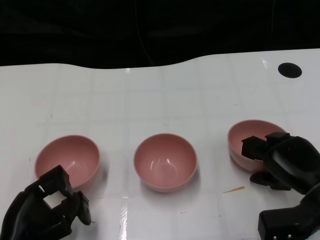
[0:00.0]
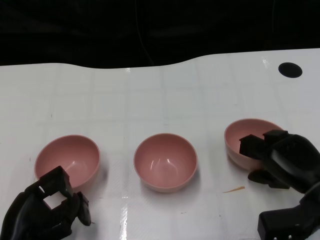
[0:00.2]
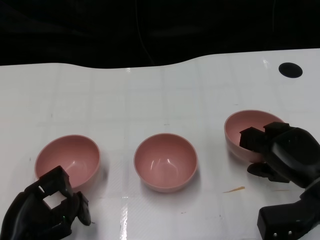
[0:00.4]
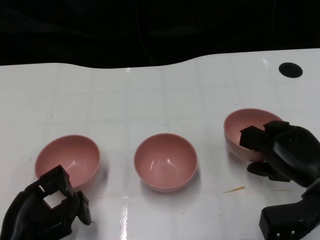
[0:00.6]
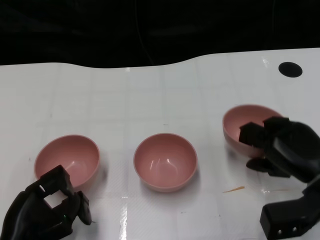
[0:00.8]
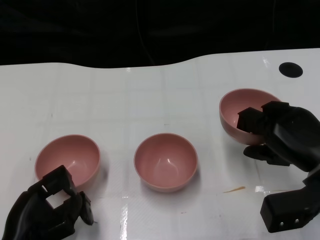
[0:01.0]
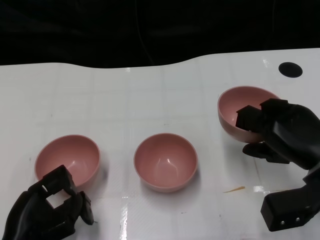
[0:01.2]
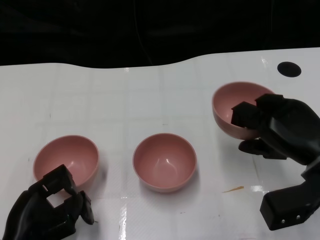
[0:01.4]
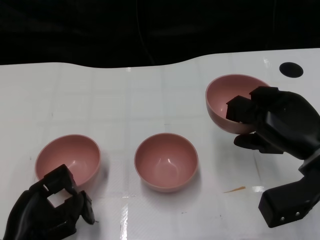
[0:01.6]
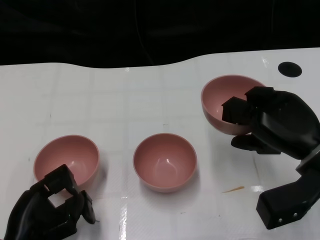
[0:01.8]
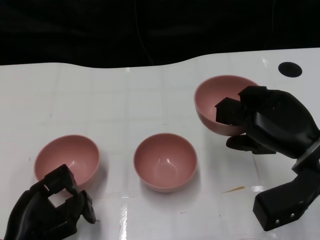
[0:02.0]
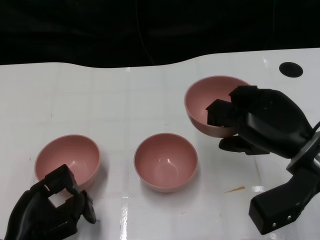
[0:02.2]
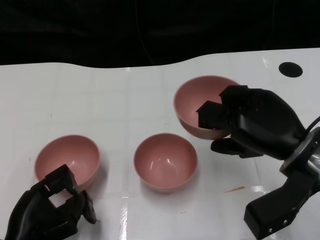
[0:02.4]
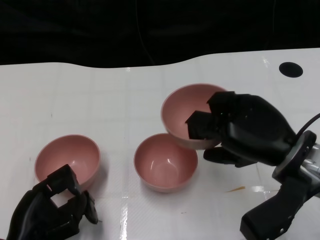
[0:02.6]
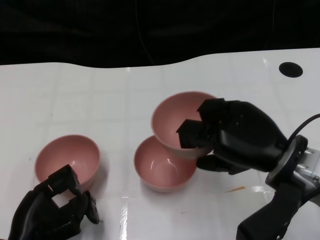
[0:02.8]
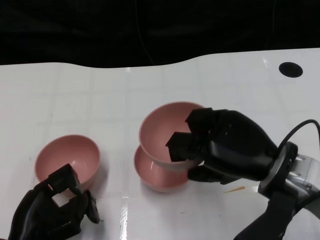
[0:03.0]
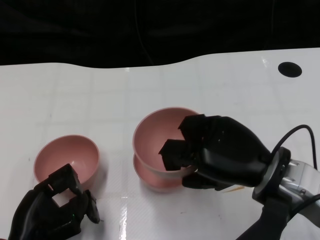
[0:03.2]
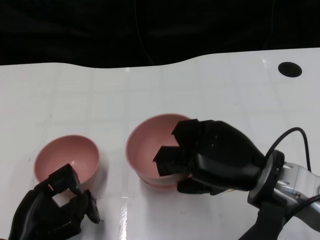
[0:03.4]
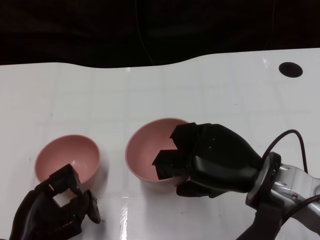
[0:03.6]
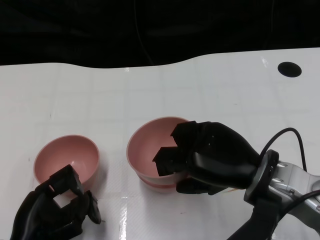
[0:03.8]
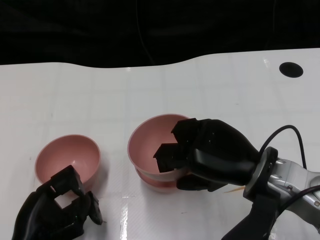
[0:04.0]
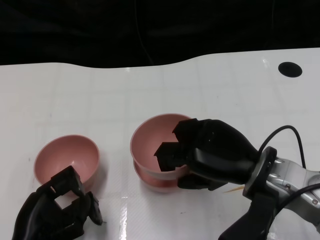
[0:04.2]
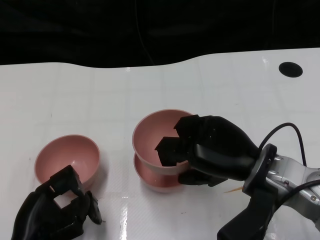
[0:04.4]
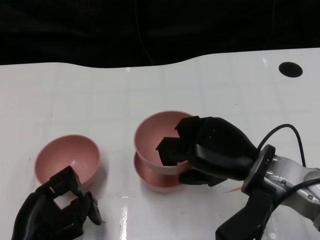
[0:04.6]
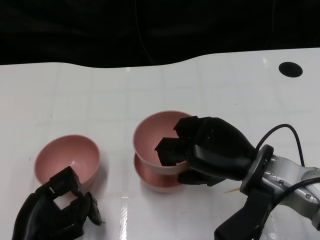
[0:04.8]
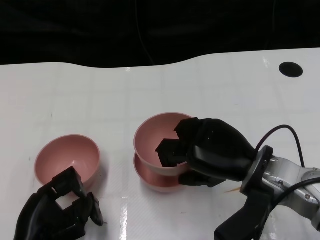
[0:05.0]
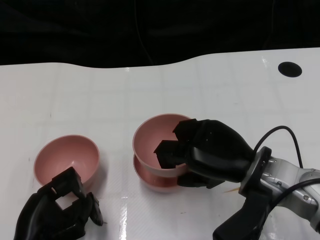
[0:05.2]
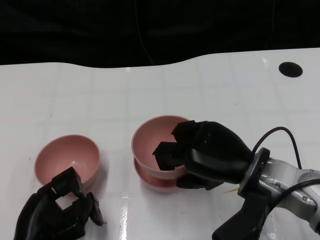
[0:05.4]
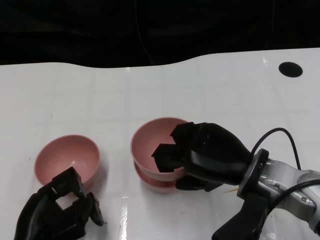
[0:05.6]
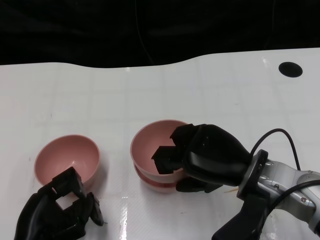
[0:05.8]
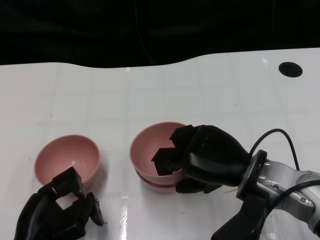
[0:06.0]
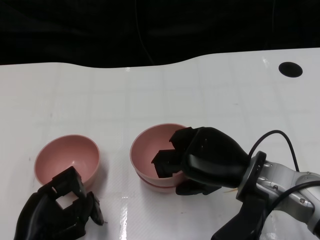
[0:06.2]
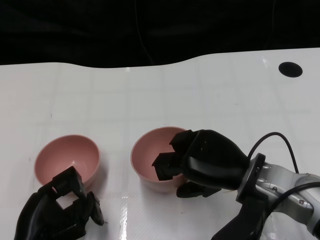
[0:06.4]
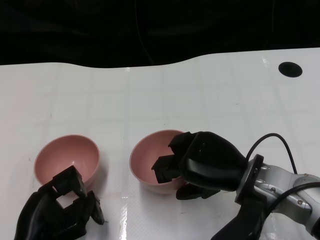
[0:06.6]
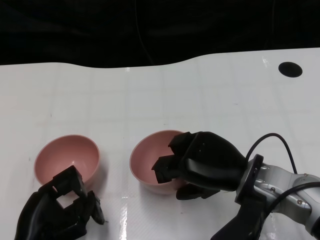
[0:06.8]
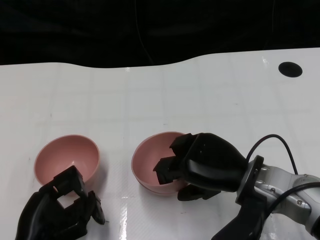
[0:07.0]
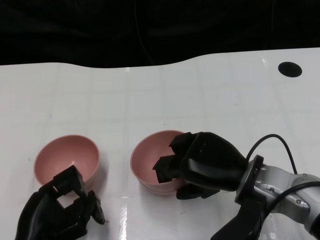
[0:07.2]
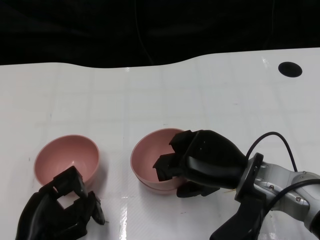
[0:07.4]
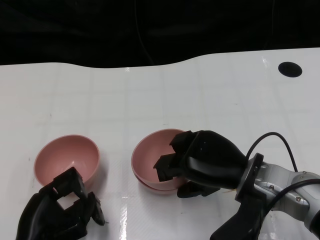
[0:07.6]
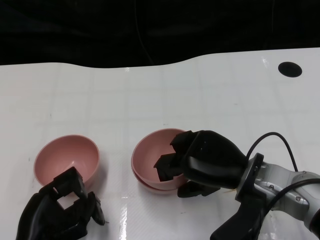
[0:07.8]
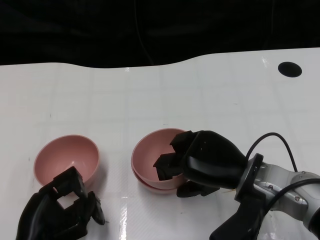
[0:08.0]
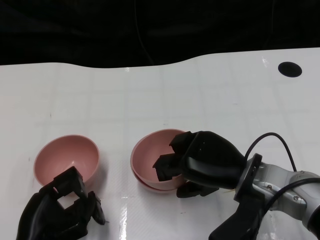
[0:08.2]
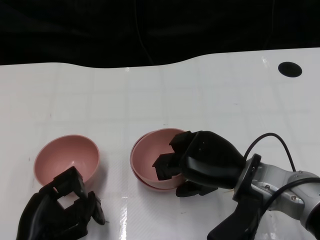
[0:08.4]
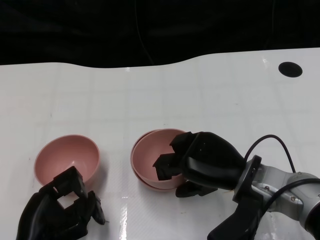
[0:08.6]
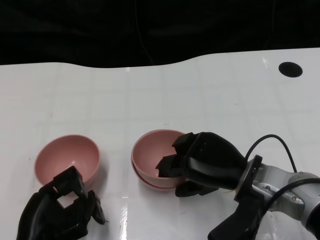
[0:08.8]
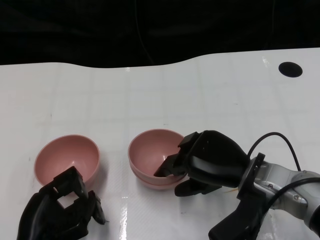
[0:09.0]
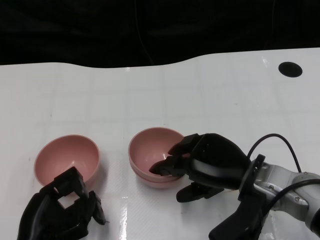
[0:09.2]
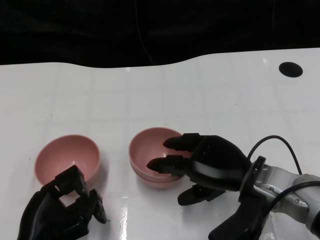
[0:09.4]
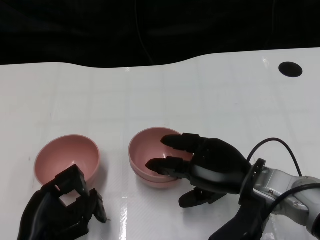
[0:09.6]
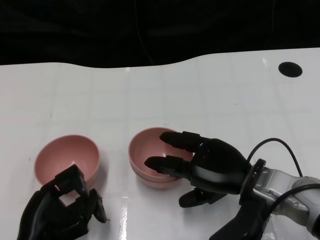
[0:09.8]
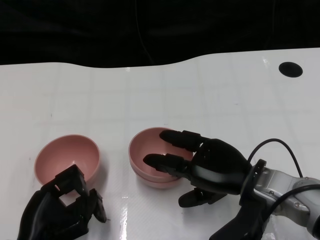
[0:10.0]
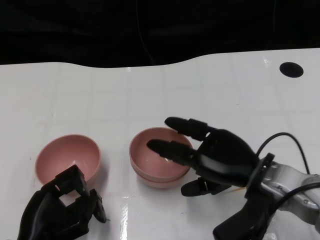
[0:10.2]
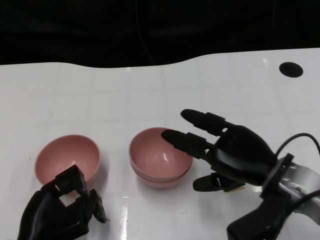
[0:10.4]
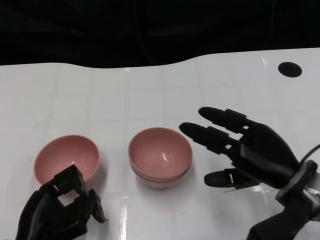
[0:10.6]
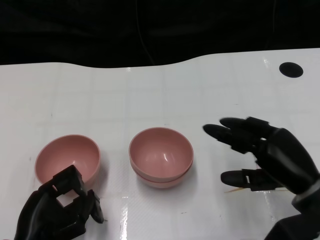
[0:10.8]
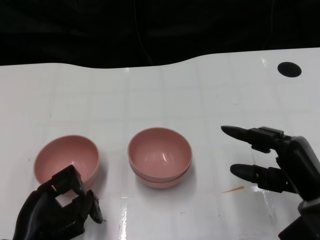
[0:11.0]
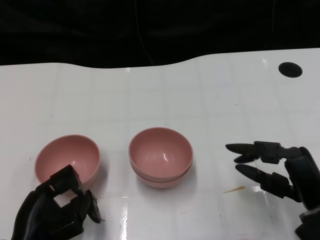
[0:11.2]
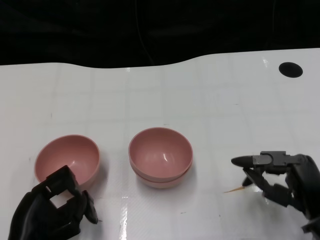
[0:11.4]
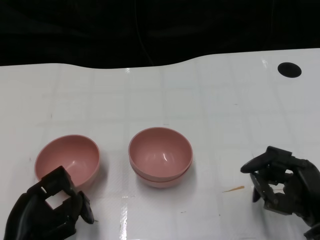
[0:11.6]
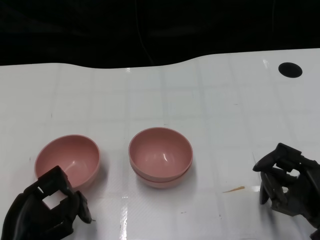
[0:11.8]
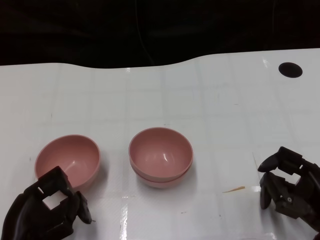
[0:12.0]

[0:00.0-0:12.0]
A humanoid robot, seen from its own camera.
Task of the whole recording: Pick up the bowl on one side of the table and place it on top of the middle bowl, then pick up the bowl on the other side of the table and place it on top of the middle bowls.
Step, 0:00.4 to 0:10.4: Place the bowl on the right onto the bowl in the middle with right gripper.
0:00.0 to 0:01.6: The right hand goes roughly 10 cm upward.
0:01.6 to 0:03.0: The right hand goes some 5 cm to the left.
0:03.0 to 0:06.0: There are only small adjustments of the hands.
0:06.0 to 0:07.6: Neither hand changes place.
0:07.6 to 0:09.0: The two hands keep their place.
0:09.0 to 0:10.4: The hands make only small movements.
0:10.4 to 0:12.0: The right hand heads to the right, downward and backward, covering some 10 cm.

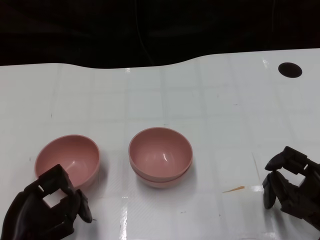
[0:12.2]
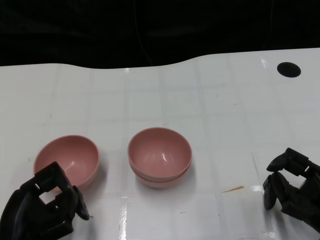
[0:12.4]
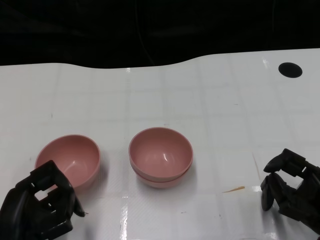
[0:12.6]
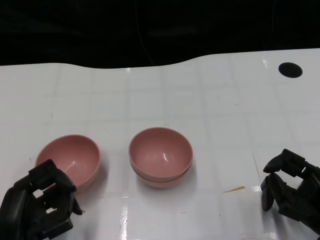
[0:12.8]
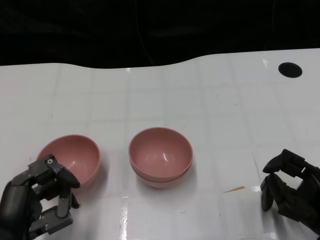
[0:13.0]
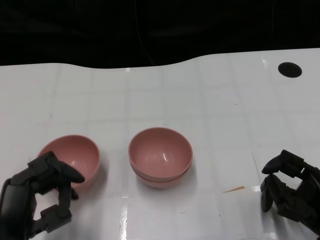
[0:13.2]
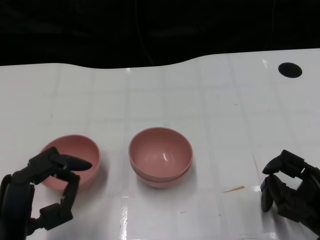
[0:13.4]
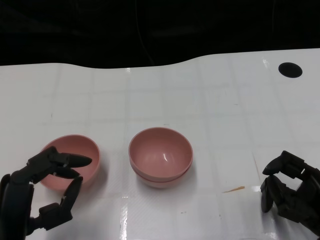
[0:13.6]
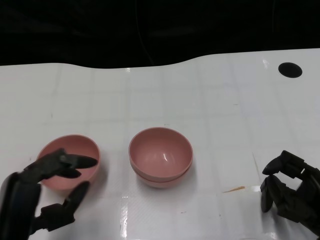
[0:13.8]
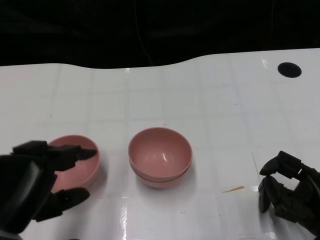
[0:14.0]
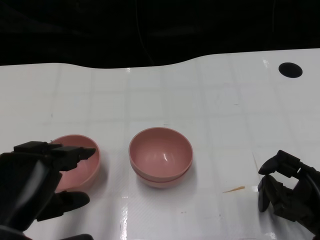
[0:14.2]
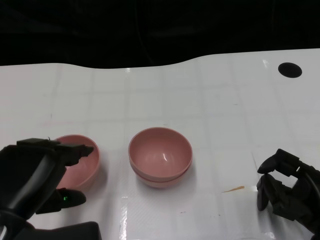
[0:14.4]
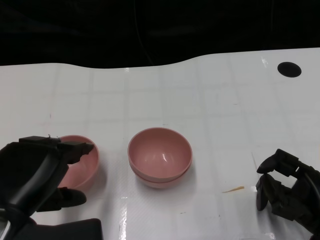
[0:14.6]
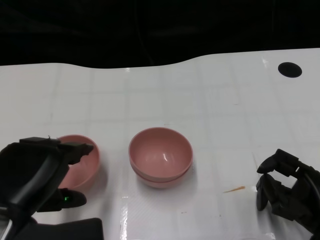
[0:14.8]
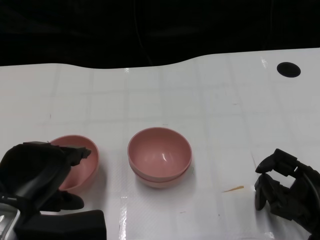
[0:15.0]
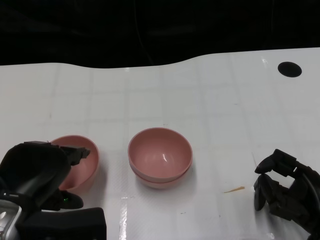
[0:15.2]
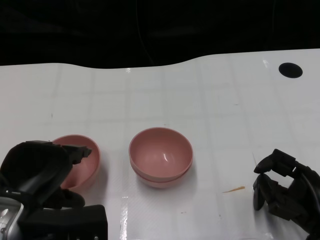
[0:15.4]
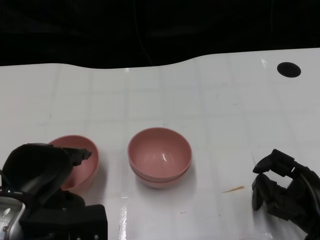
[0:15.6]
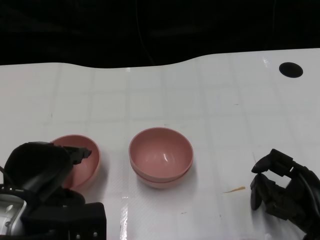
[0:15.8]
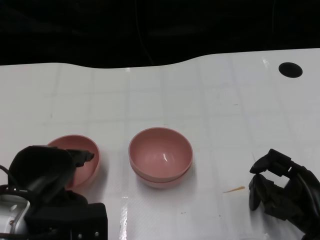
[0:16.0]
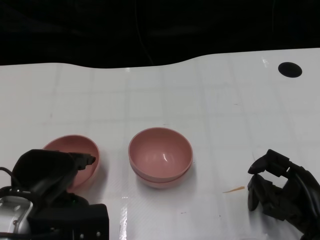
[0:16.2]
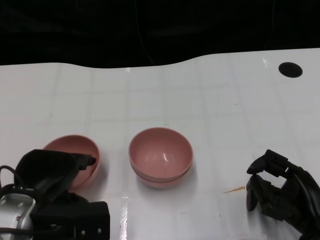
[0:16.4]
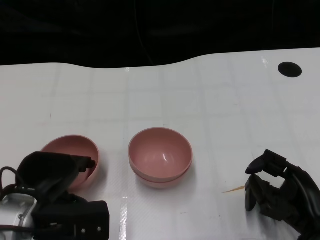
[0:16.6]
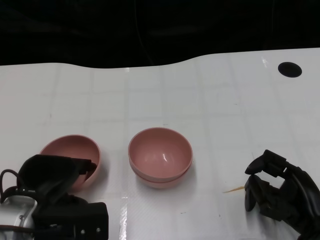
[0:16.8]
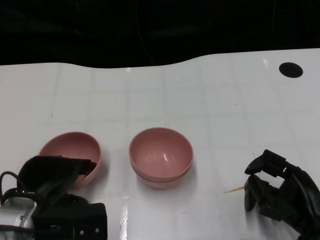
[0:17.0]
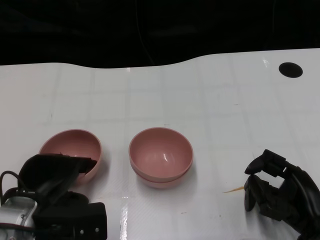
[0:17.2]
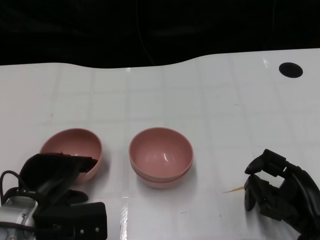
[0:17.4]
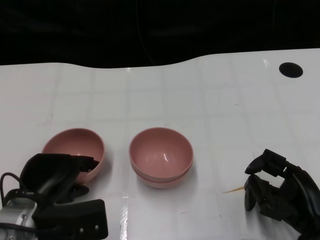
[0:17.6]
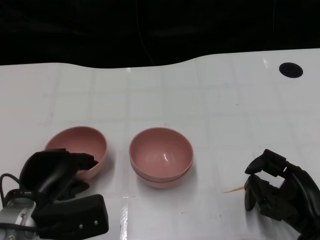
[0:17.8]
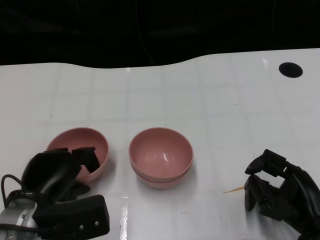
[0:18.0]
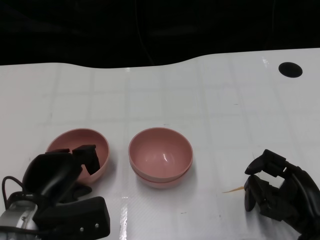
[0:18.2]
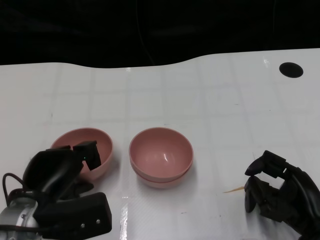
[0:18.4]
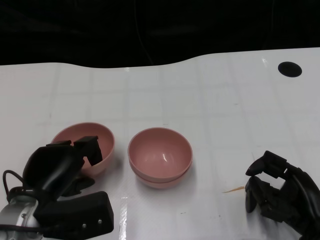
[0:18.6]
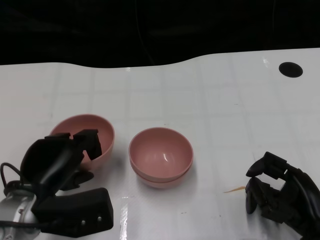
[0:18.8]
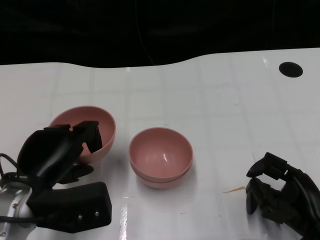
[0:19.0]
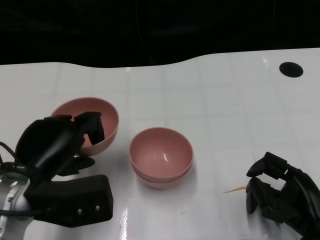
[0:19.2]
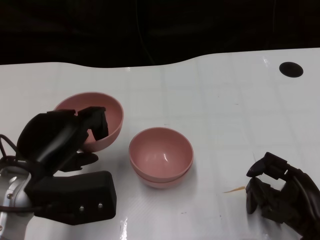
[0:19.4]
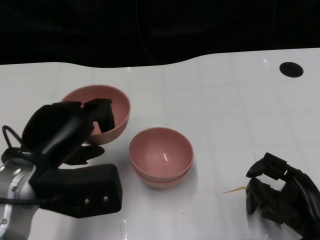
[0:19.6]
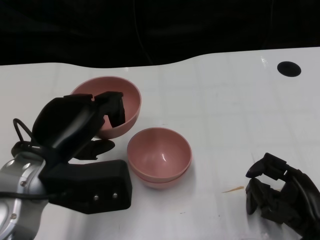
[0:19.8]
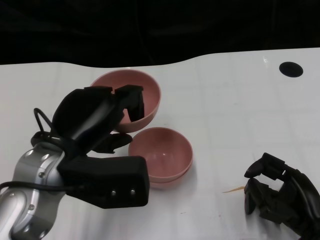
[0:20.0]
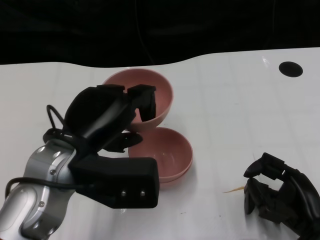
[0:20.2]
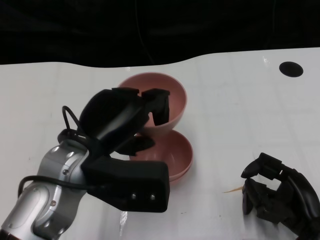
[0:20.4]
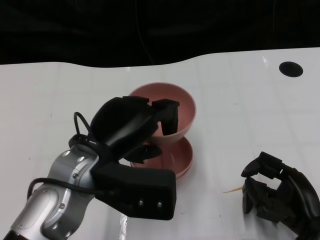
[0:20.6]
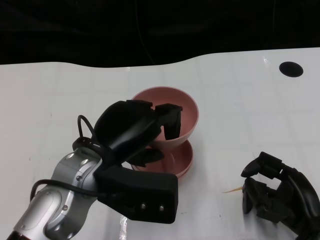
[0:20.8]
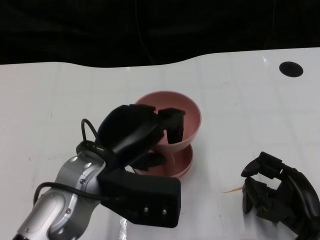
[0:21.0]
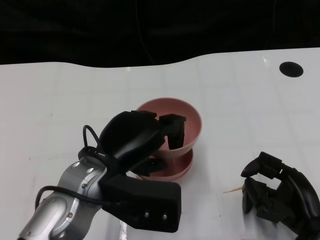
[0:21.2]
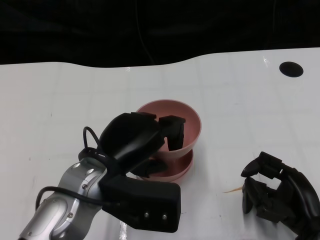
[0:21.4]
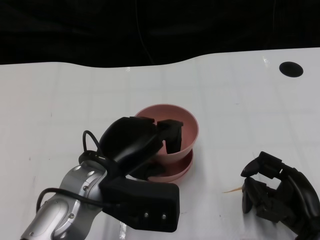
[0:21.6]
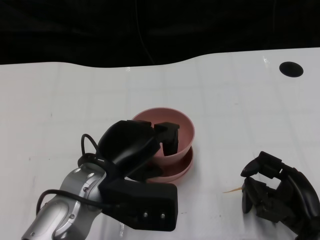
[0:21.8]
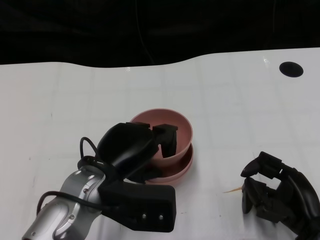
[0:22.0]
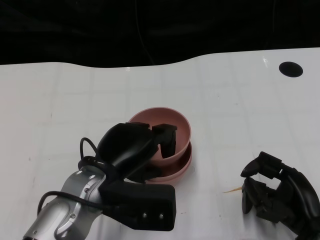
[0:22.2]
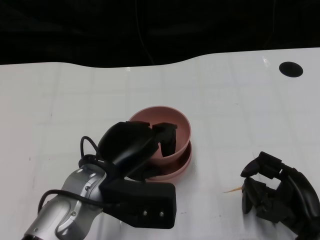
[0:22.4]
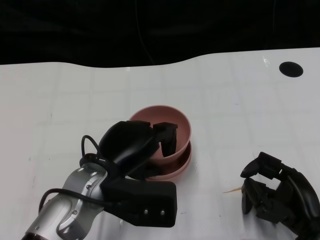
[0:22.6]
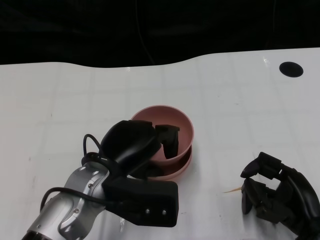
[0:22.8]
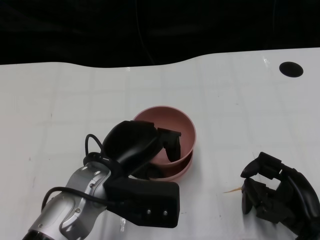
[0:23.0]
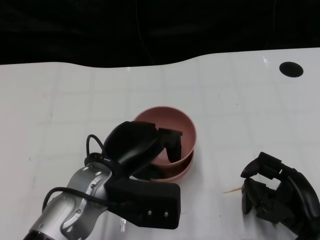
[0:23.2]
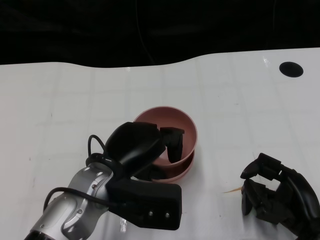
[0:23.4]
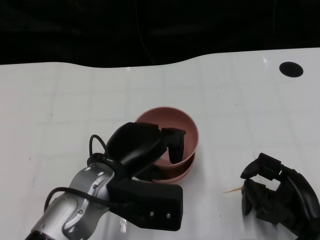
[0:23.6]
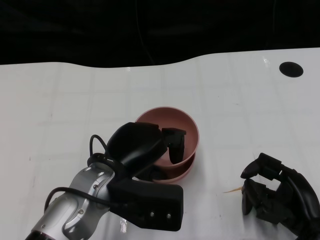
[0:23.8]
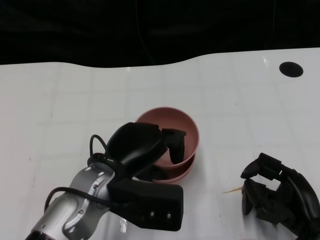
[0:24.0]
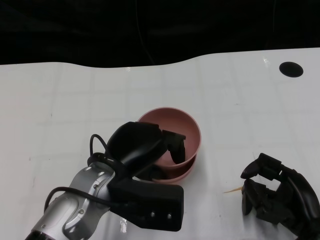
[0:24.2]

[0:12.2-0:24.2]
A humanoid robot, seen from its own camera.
Task of the whole recording: Pick up the bowl on one side of the table and place it on top of the middle bowl, then pick up the bowl on the other side of the table and place it on top of the middle bowls.
Step, 0:12.2 to 0:18.4: Grasp the bowl on the left with the left gripper.
0:13.8 to 0:15.2: The left hand changes place by about 5 cm.
0:15.2 to 0:16.6: The left hand changes place by some 5 cm.
0:16.6 to 0:18.2: There are only small adjustments of the hands.
0:18.2 to 0:19.8: The left hand goes approximately 10 cm upward.
0:19.8 to 0:21.2: The left hand travels to the right by some 5 cm.
0:21.2 to 0:22.6: The hands make only small movements.
0:22.6 to 0:24.2: The two hands keep their place.
